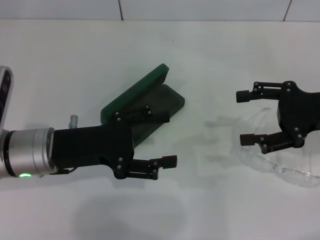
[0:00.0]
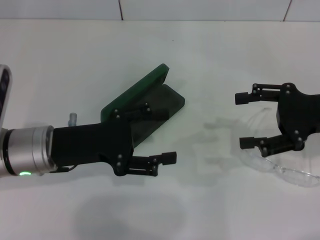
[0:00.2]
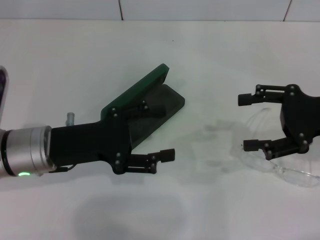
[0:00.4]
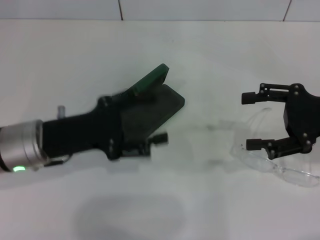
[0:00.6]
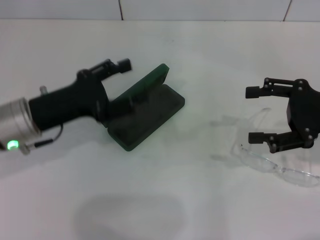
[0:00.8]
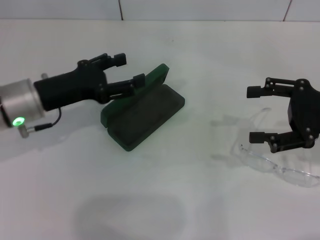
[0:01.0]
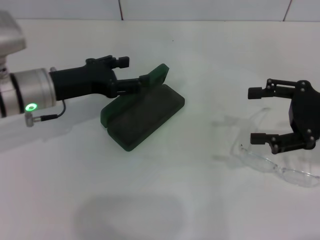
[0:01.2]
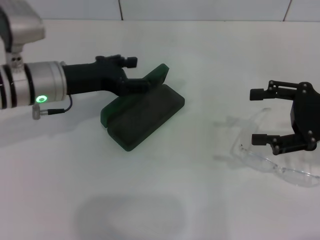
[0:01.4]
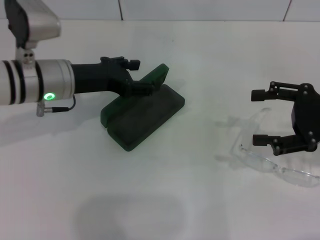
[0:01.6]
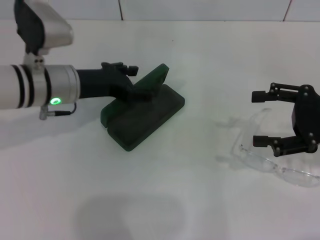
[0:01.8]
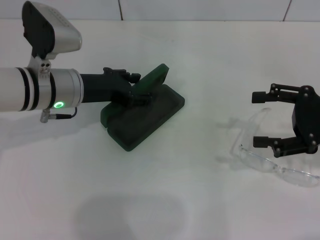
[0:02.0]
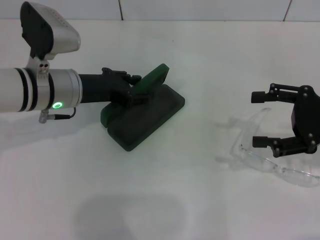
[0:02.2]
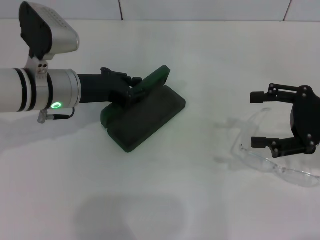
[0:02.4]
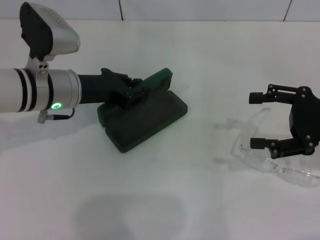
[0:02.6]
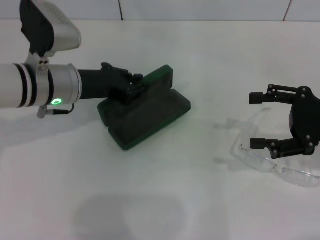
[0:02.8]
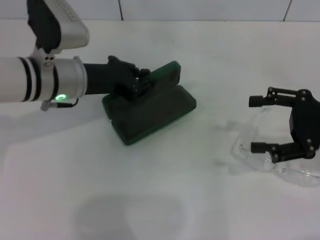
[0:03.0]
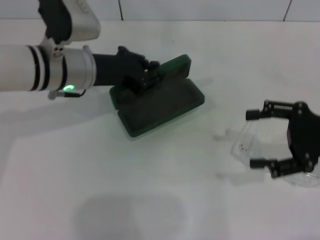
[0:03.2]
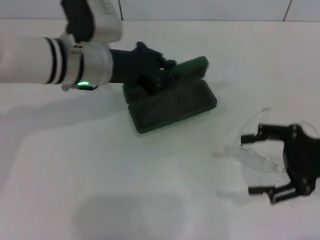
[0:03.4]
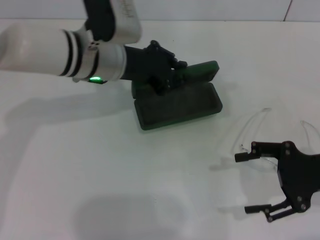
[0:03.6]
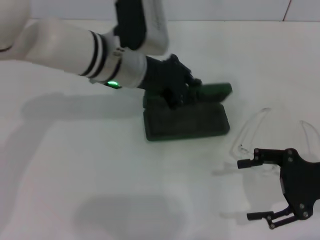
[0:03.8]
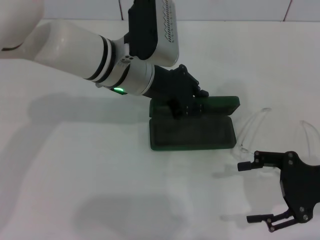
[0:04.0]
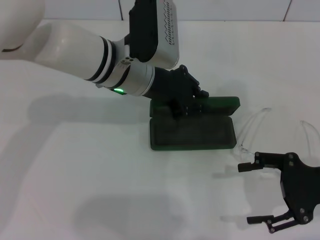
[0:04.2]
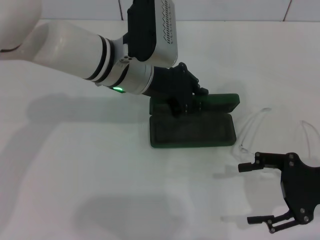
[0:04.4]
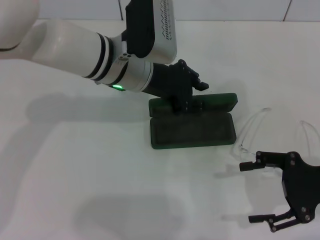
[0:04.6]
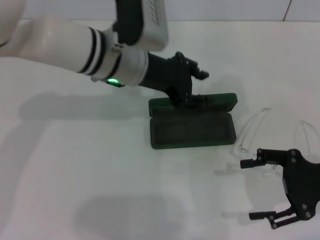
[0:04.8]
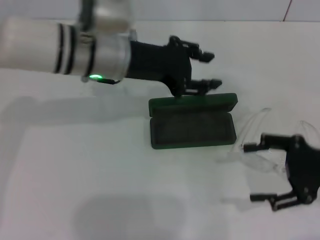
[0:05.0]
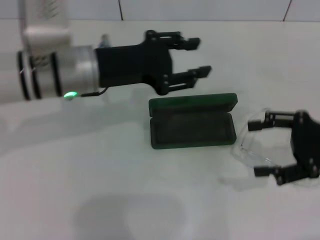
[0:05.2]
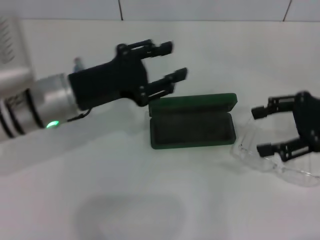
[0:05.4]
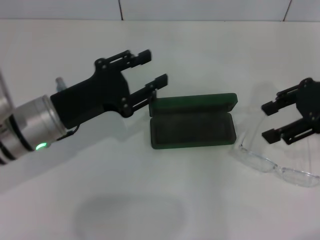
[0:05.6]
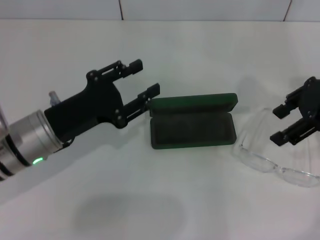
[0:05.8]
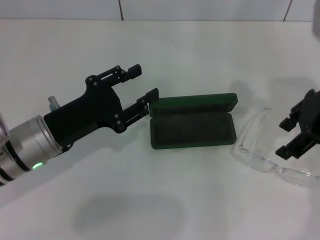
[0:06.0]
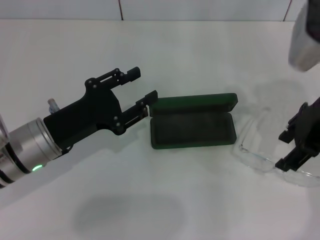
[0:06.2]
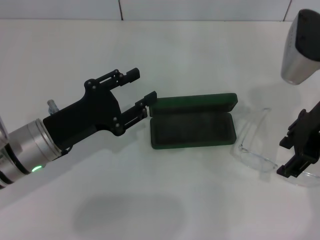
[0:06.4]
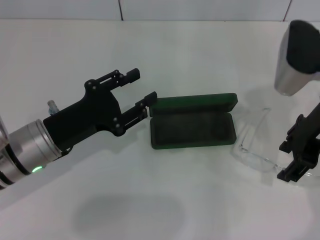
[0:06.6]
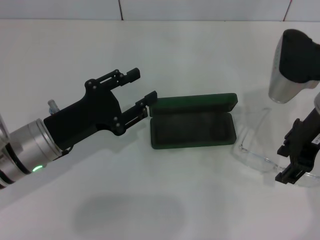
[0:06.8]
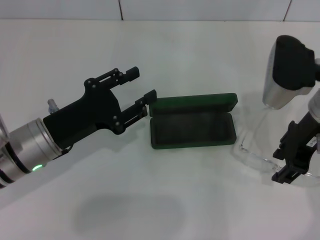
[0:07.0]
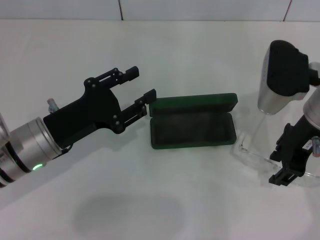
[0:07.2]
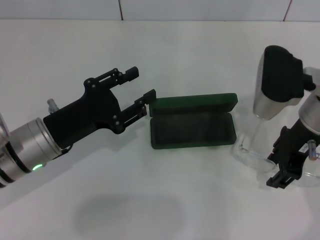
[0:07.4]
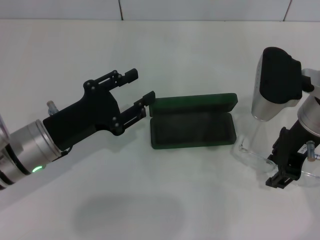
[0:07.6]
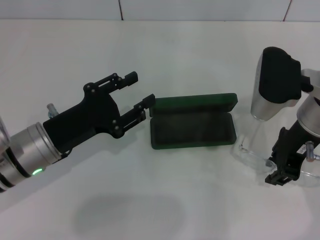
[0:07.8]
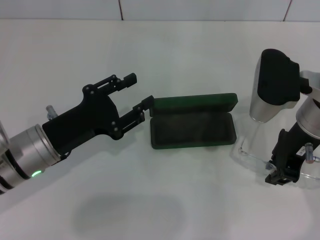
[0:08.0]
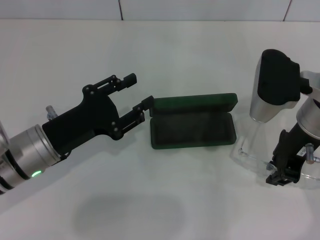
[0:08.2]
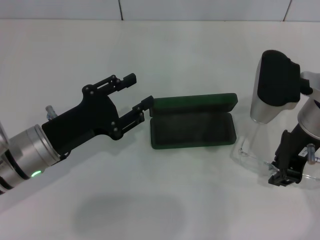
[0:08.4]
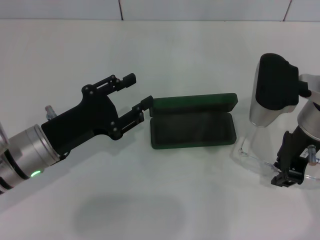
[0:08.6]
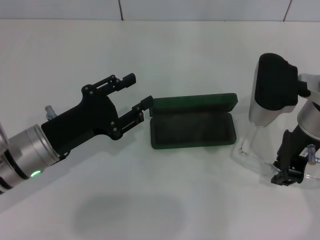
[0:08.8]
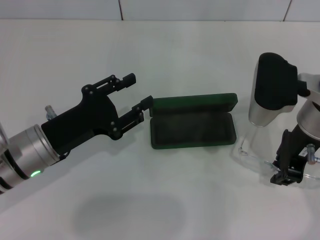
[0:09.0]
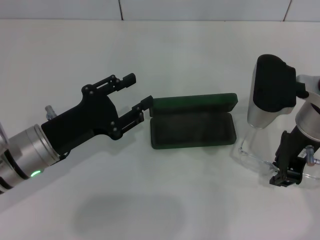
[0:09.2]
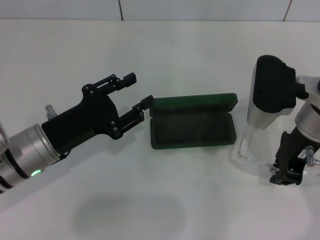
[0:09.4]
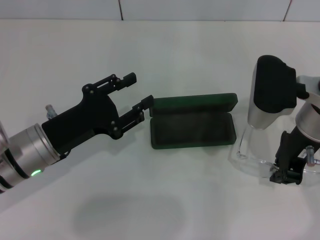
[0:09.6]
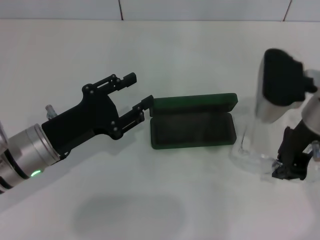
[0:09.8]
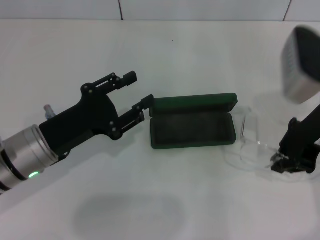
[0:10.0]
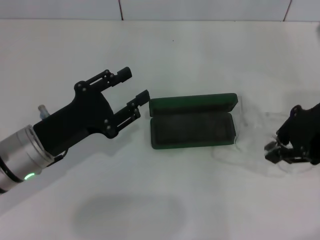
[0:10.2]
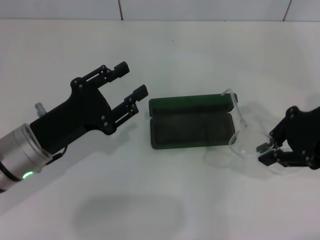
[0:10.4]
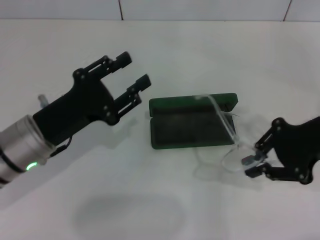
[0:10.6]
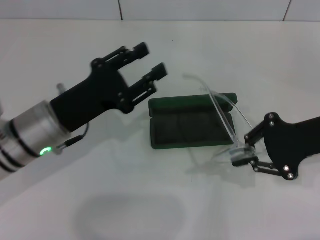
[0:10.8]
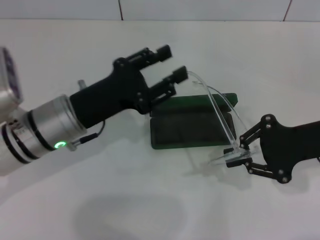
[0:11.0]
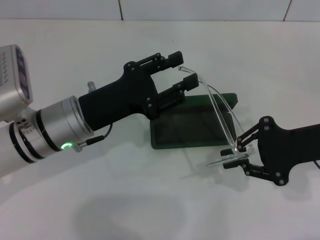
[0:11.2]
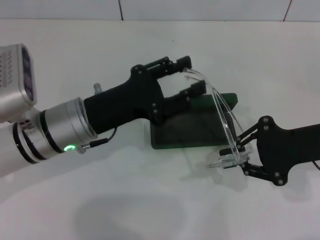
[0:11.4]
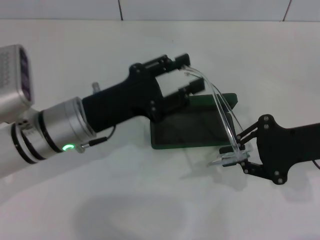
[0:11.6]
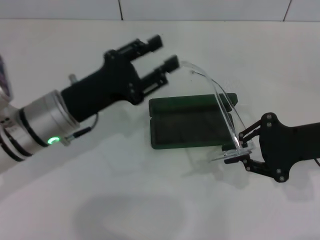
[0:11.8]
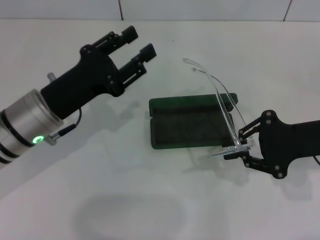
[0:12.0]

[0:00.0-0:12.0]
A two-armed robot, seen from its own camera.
Step, 0:00.0 to 0:02.2: Grab the glasses case with your left hand.
Step, 0:02.4 to 0:04.6: Place the glasses case in the center of the table with your left hand.
Step, 0:04.8 to 0:09.6: Grab the eyeglass frame with your right hand.
0:00.0 to 0:01.6: The left gripper goes some 10 cm forward.
0:01.6 to 0:03.0: The left gripper closes its fingers.
0:03.0 to 0:04.4: The left gripper is displaced to the right by about 10 cm. Meanwhile the right gripper moves roughly 5 cm.
0:04.4 to 0:06.0: The right gripper shifts some 15 cm upward and forward. The left gripper goes approximately 20 cm to the left, backward and downward, and opens up.
0:06.0 to 0:07.6: The right gripper travels downward by approximately 5 cm.
0:07.6 to 0:09.0: The right gripper closes up.
0:09.0 to 0:10.4: The right gripper heads to the right, covering roughly 5 cm.
0:10.4 to 0:12.0: The right gripper heads downward, covering about 5 cm.

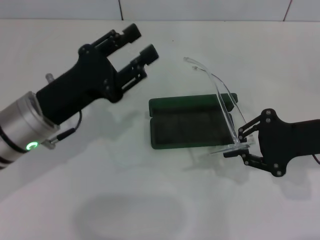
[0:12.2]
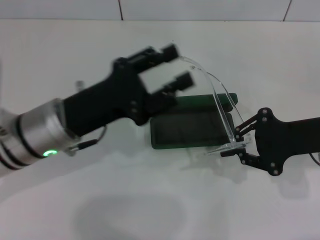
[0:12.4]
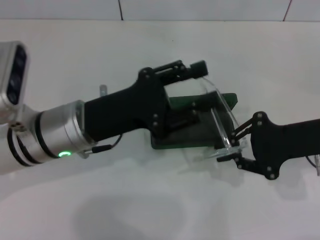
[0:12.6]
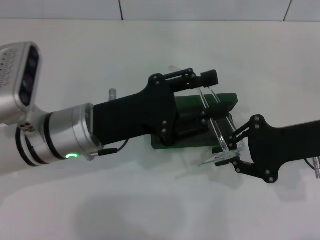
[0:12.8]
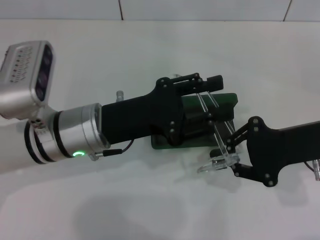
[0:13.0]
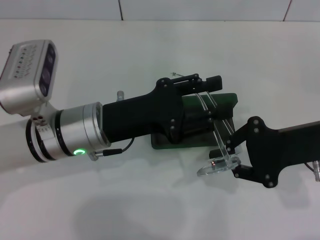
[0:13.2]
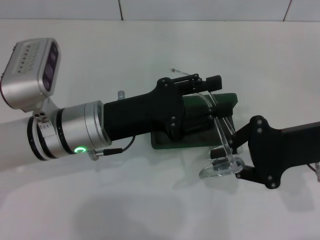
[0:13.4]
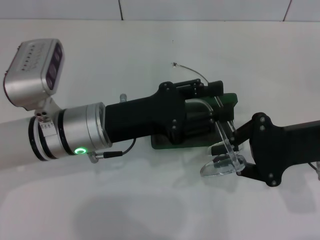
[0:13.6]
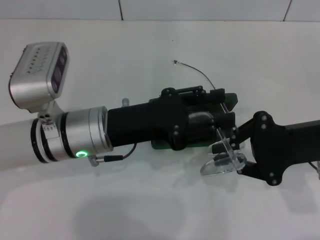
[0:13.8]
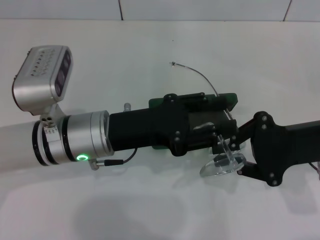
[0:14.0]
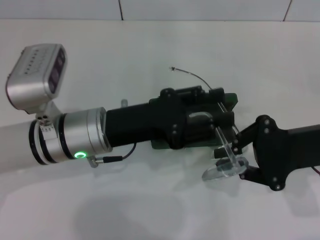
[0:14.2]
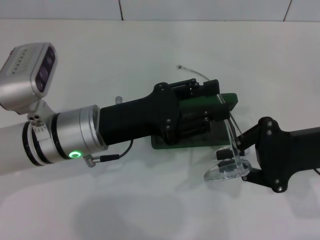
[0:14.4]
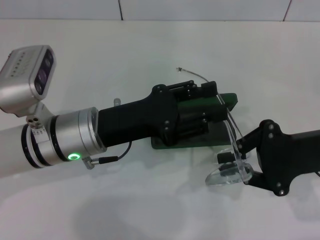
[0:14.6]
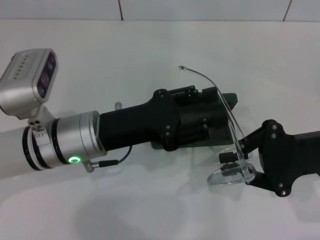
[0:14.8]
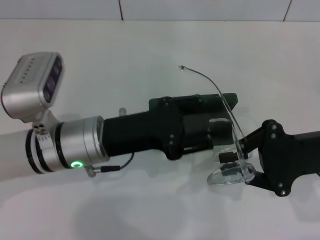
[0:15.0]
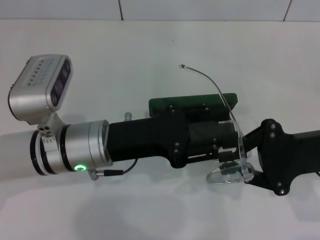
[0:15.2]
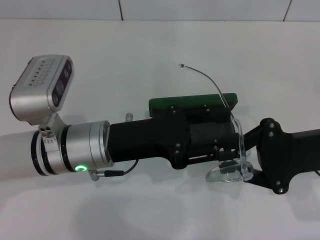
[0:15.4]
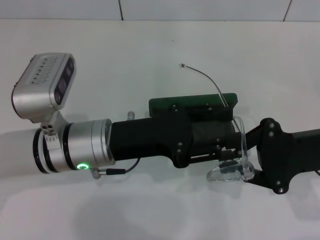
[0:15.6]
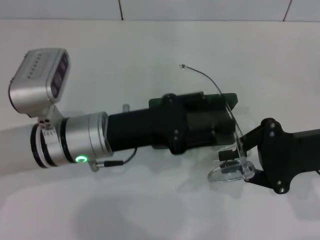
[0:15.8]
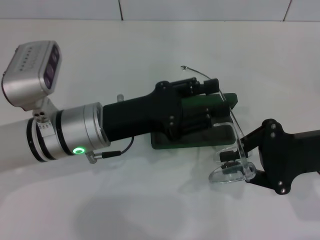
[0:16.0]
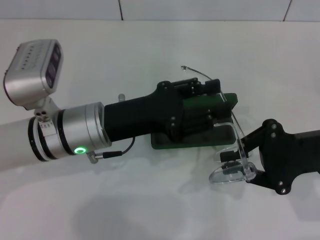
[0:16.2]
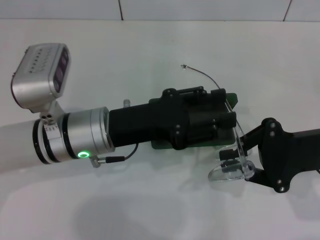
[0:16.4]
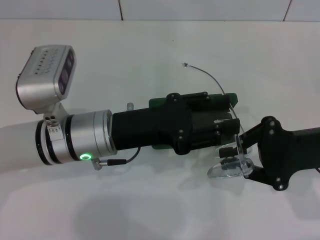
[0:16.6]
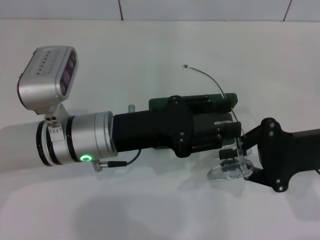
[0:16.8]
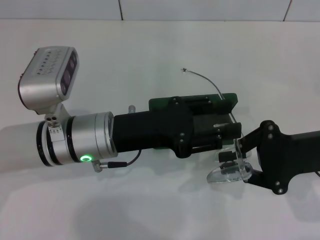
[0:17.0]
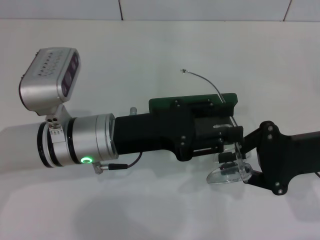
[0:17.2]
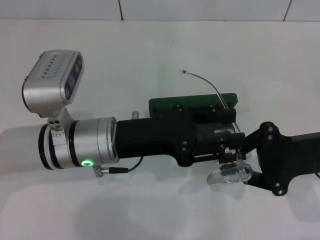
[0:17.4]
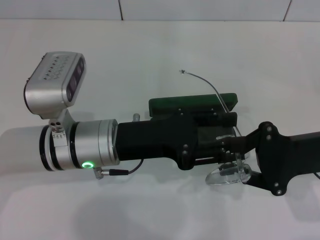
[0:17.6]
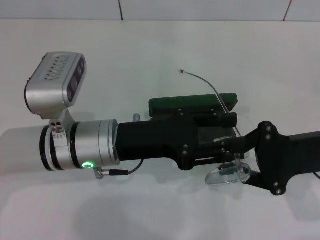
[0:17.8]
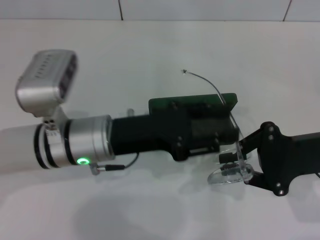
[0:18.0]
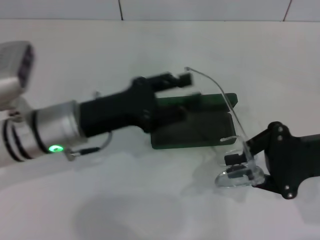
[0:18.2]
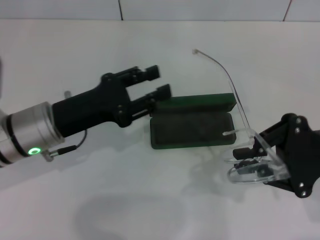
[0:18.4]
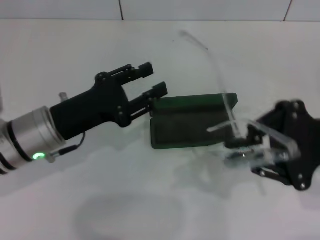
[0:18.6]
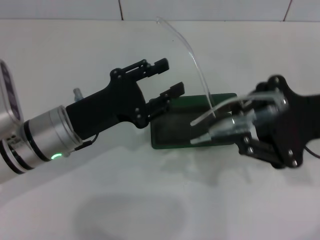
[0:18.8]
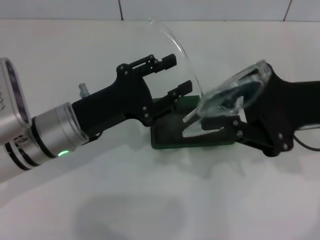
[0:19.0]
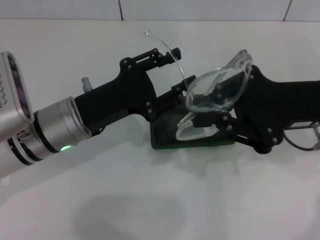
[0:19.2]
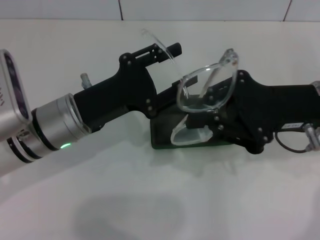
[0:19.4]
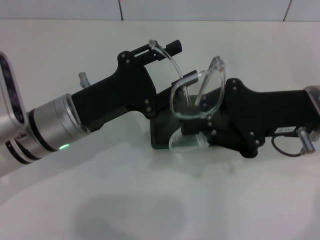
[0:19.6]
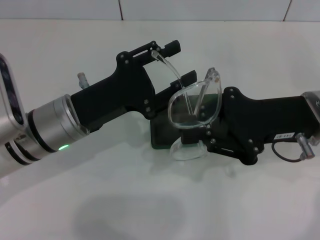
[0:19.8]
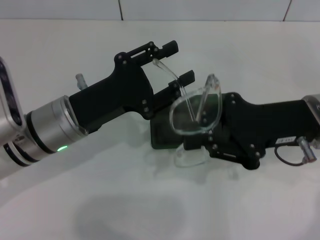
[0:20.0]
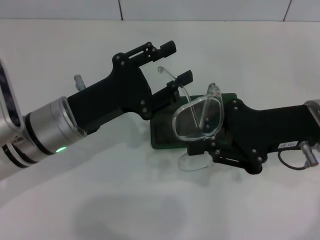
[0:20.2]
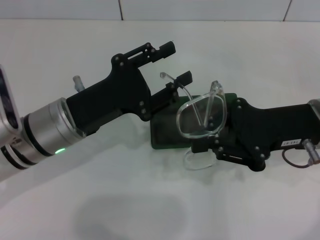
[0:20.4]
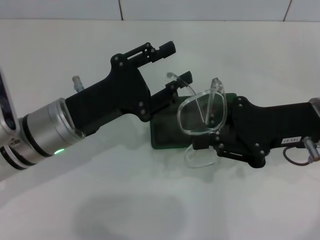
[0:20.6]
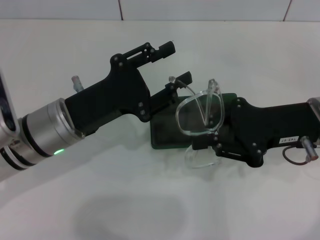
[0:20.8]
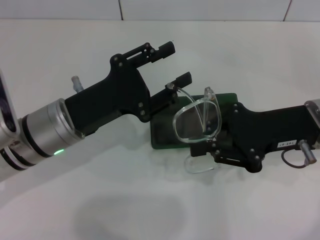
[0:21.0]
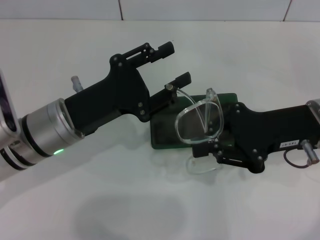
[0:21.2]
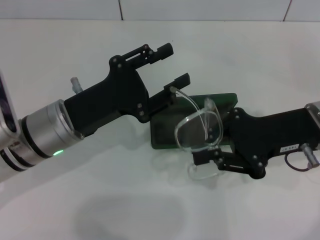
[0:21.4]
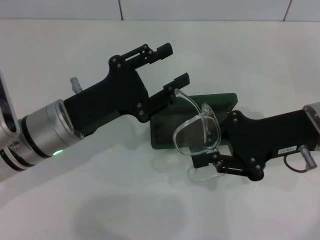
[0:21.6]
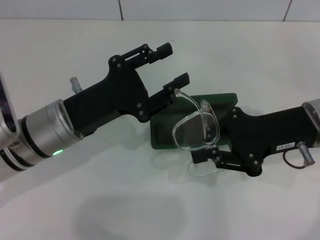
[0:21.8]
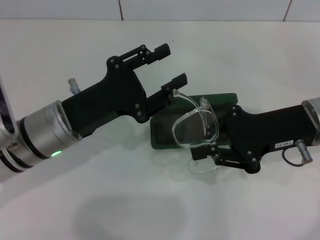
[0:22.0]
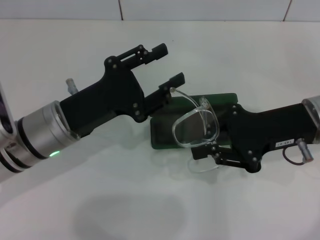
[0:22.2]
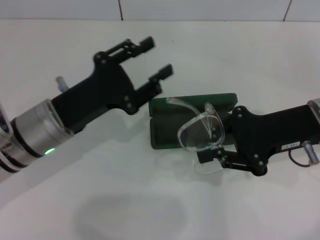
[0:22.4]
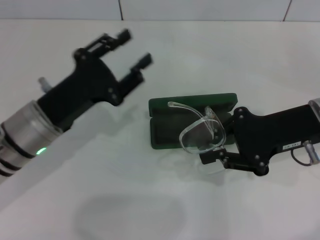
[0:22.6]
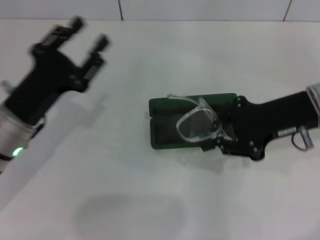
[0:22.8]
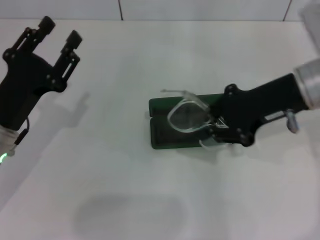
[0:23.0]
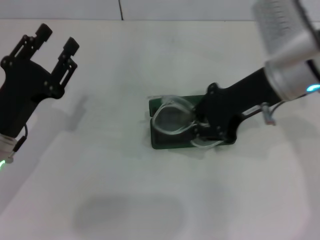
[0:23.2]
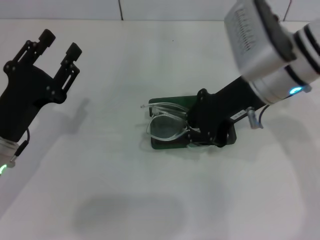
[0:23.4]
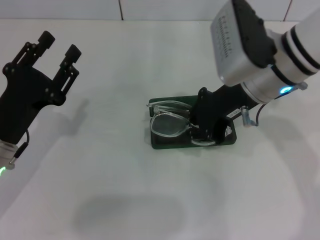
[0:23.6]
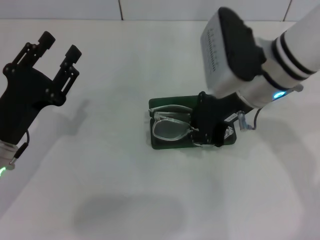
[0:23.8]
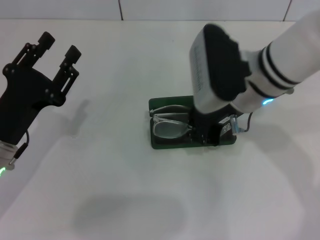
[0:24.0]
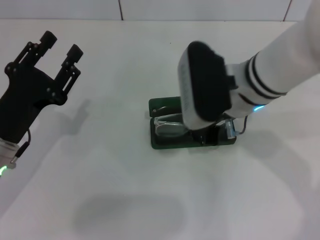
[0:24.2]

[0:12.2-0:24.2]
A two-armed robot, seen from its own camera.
Step, 0:12.2 to 0:22.0: Fold the frame with your left hand.
0:12.2 to 0:13.8: The left gripper moves to the right, some 5 cm.
0:13.8 to 0:16.6: The grippers stay close to where they were, moving slightly.
0:18.2 to 0:19.8: The right gripper is displaced to the left by some 5 cm.
0:19.8 to 0:22.6: The grippers stay close to where they were, moving slightly.
0:22.6 to 0:24.2: The left gripper moves approximately 5 cm, while the right gripper heads to the left, covering roughly 15 cm.
